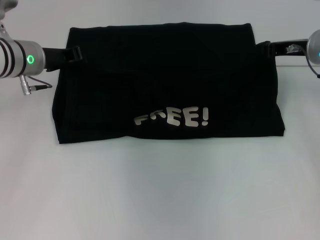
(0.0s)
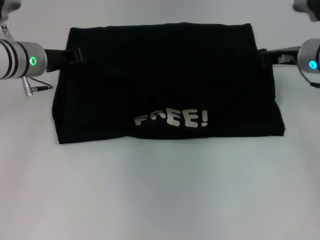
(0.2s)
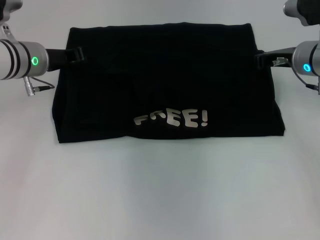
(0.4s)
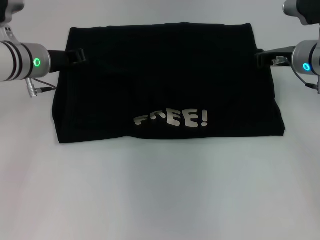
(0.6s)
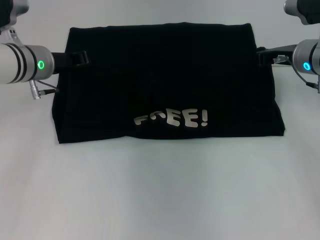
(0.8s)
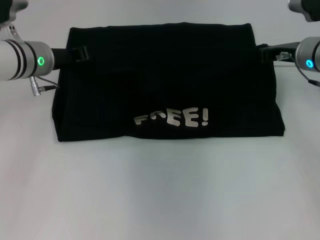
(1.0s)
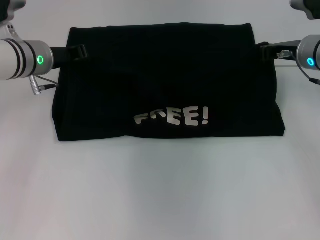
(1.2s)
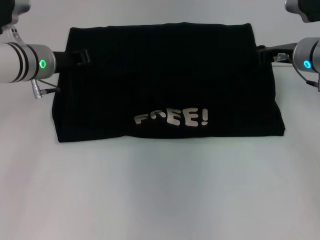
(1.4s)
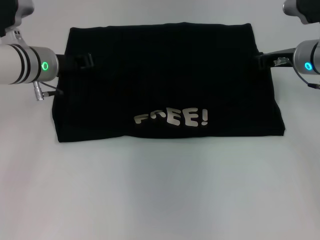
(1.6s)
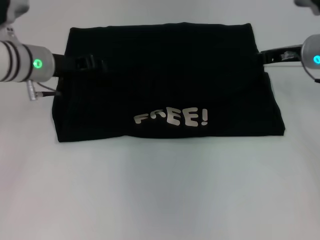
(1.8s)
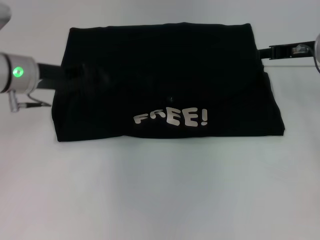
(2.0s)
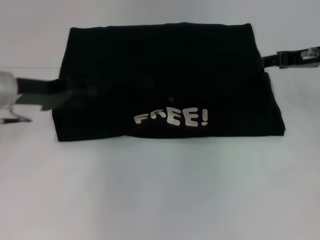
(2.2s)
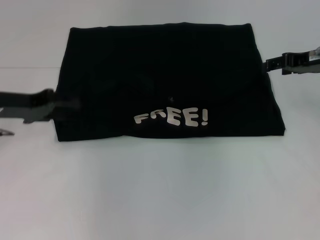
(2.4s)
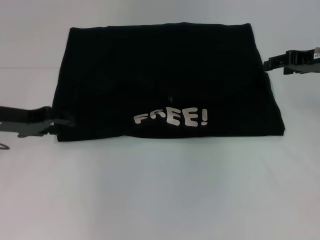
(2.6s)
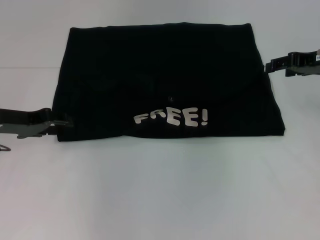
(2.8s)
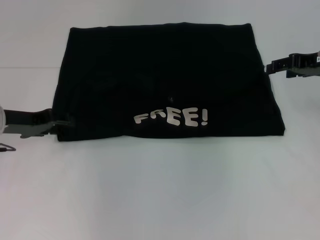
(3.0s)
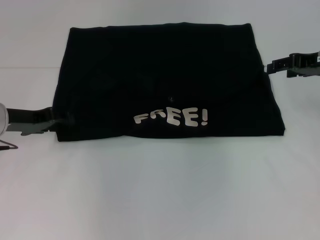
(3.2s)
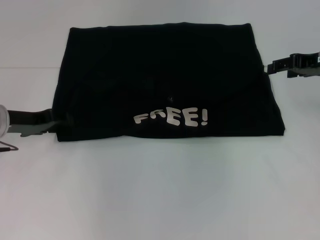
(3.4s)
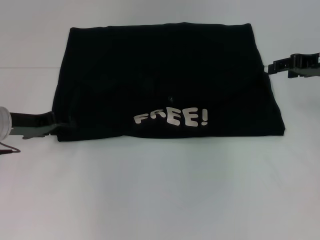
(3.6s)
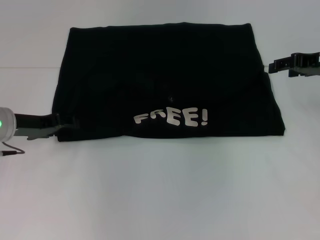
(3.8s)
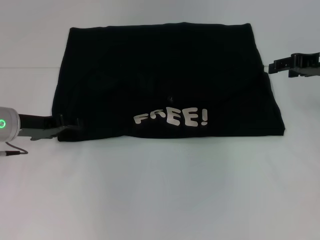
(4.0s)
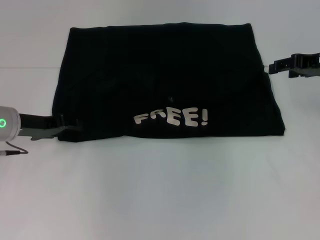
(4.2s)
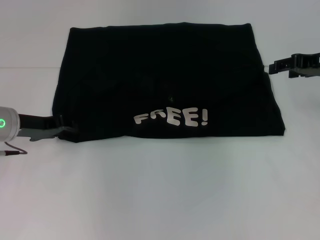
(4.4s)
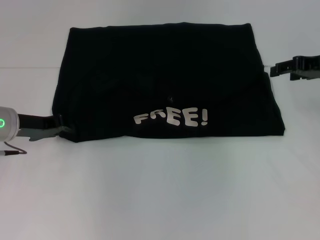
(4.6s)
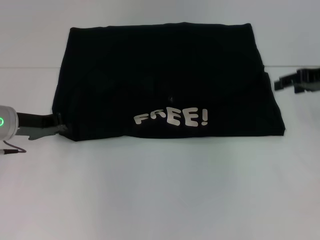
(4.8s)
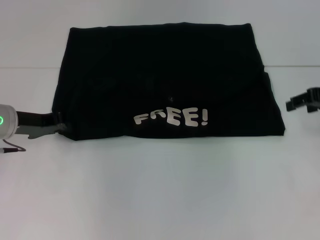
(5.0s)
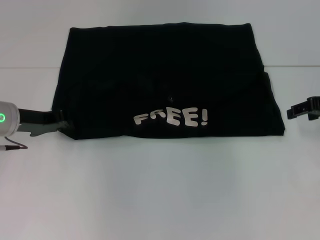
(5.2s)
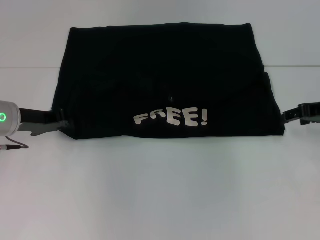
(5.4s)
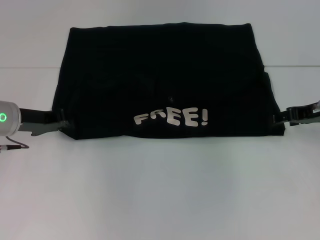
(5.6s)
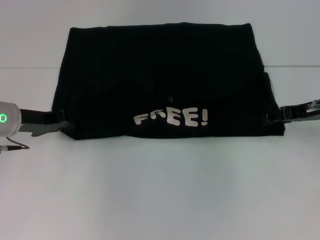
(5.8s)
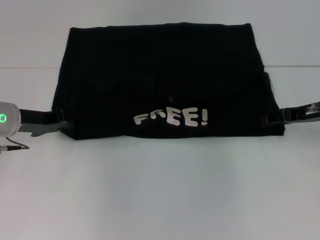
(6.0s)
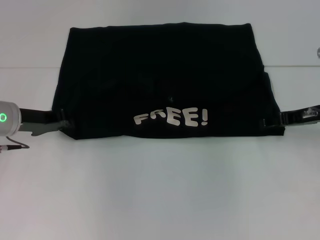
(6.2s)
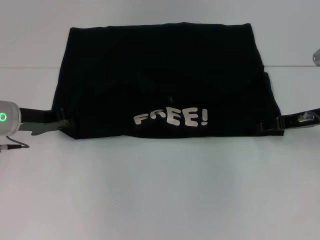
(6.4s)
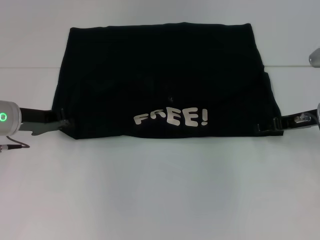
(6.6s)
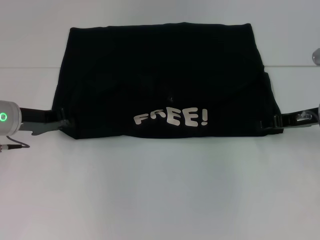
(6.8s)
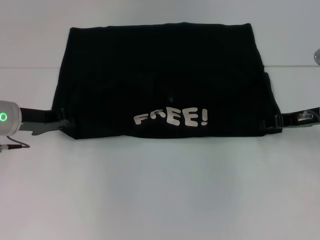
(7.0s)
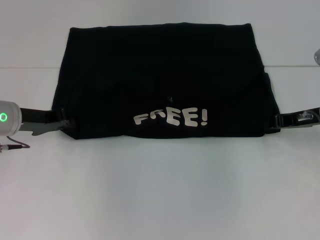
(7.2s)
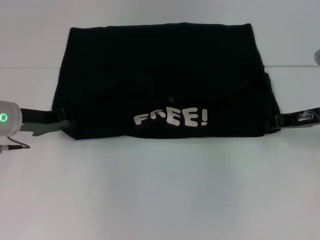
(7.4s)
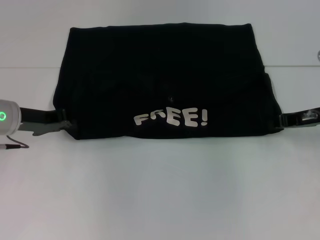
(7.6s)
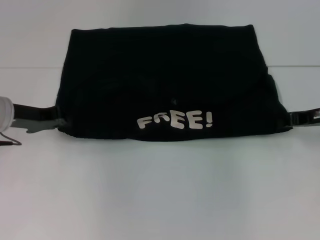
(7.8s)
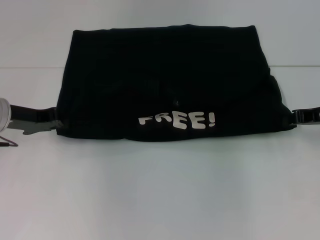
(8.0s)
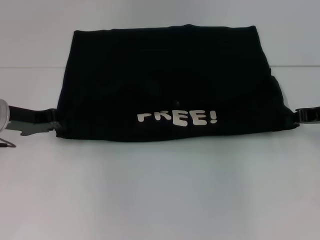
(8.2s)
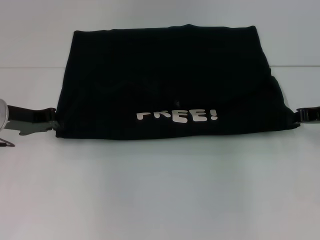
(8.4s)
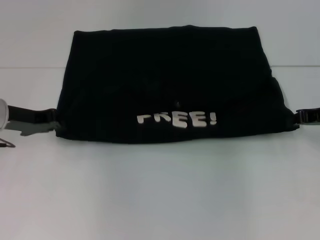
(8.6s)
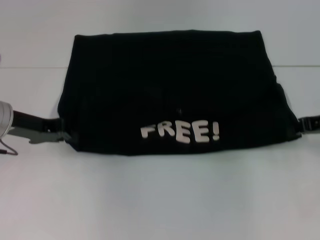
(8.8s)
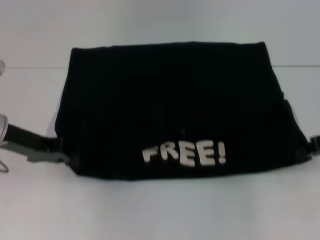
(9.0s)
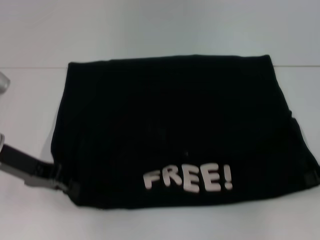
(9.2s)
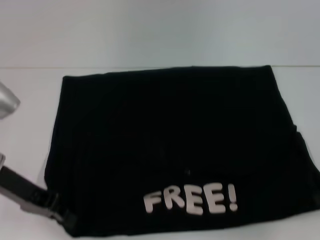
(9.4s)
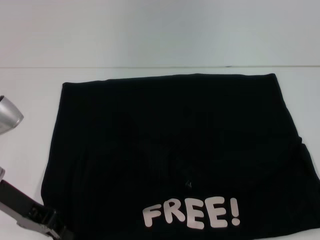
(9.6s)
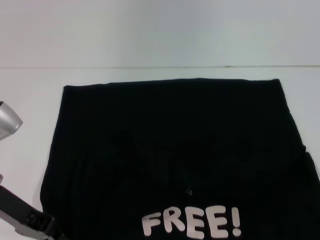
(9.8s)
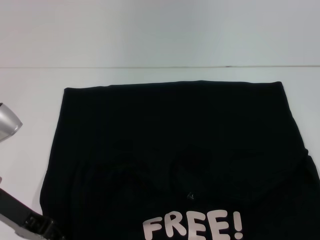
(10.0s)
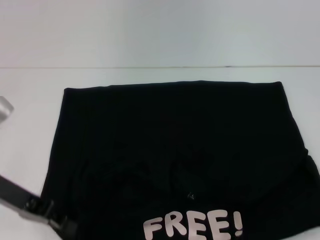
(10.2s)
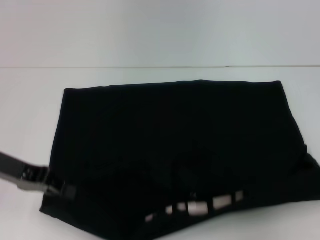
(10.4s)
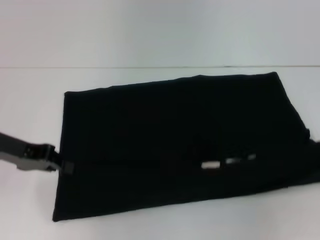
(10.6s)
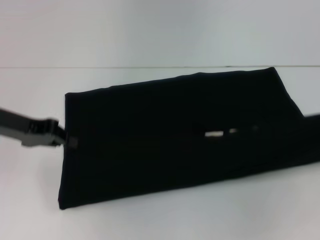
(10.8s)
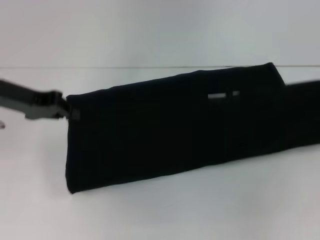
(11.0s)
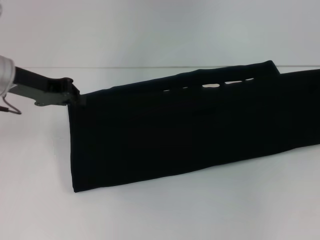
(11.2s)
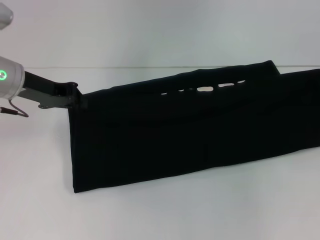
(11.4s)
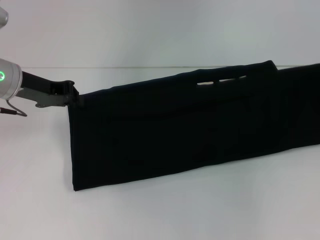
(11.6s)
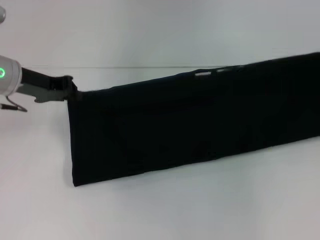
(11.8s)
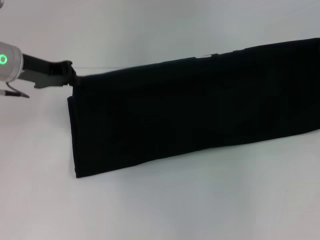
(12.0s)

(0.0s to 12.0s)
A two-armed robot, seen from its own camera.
Step, 0.0s - 2.0s: Fold the clothes with your left hand.
Step, 0.0s - 2.0s: Fold the clothes with your right hand.
Step, 2.2s - 9.6s: Pull the clothes with your left hand.
Step, 2.2s - 9.6s: Pull the clothes with your right hand.
0.0s - 1.6s: The grippers stay close to where they were, moving slightly.
1.6s - 3.0s: The right gripper heads to the right, covering roughly 5 cm, and opens. Meanwhile the left gripper moves to the left and backward, some 10 cm, and opens.
3.0s - 4.4s: The grippers make only small movements.
4.4s - 6.0s: The left gripper closes up, while the right gripper shifts approximately 5 cm downward.
6.0s - 7.6s: The right gripper closes.
7.6s - 9.0s: The right gripper changes place by roughly 5 cm.
9.0s - 10.4s: The right gripper moves backward and to the right, some 10 cm.
10.4s - 12.0s: The grippers both shift forward by approximately 10 cm.

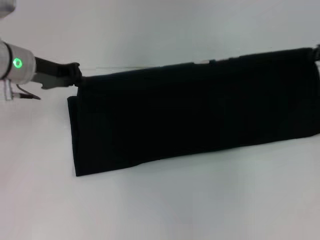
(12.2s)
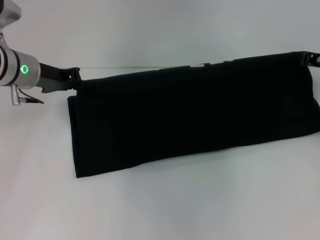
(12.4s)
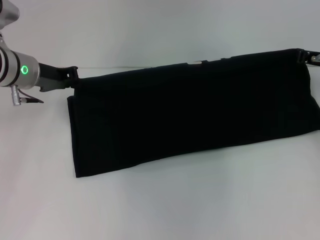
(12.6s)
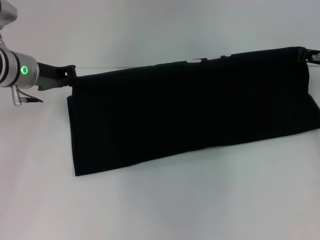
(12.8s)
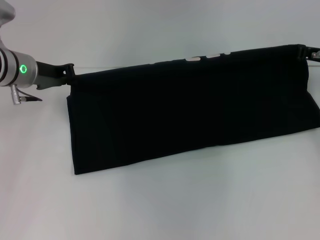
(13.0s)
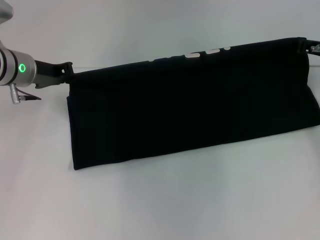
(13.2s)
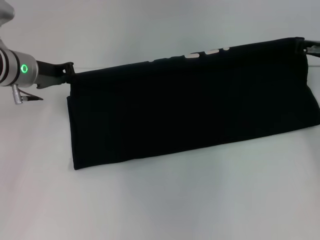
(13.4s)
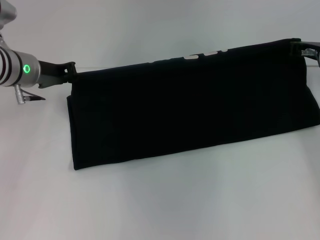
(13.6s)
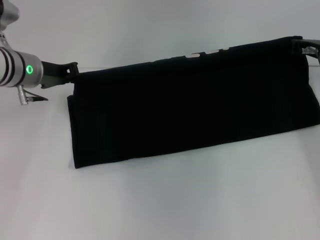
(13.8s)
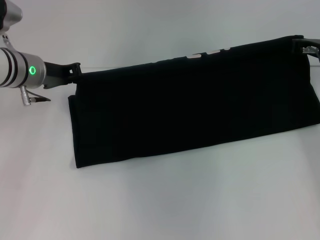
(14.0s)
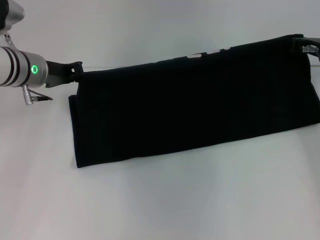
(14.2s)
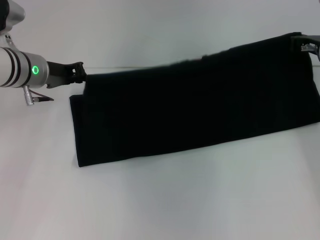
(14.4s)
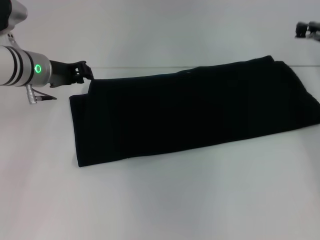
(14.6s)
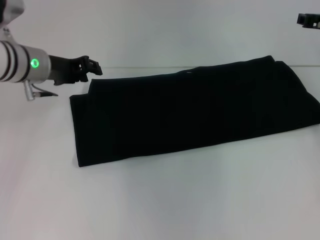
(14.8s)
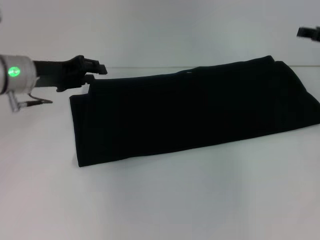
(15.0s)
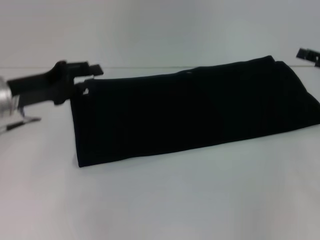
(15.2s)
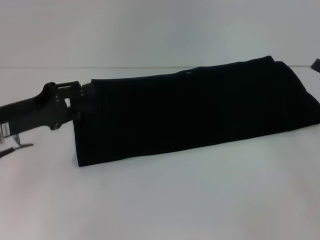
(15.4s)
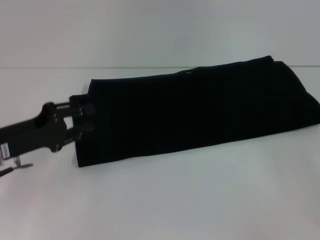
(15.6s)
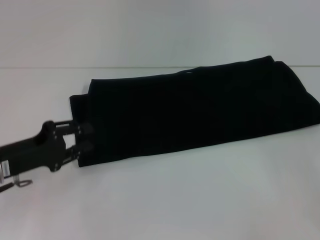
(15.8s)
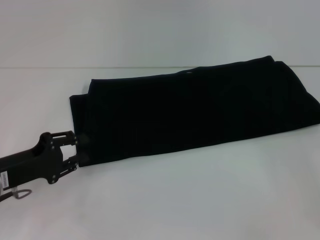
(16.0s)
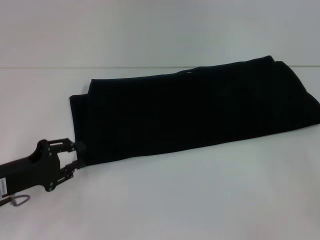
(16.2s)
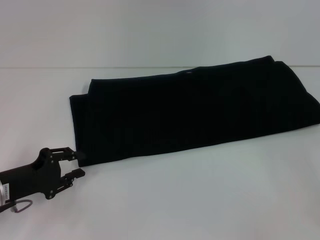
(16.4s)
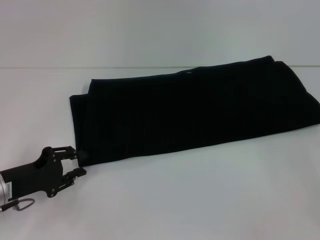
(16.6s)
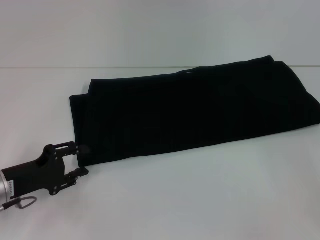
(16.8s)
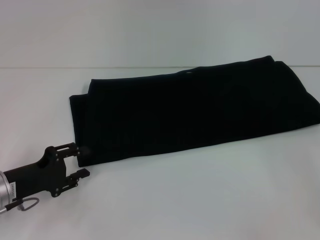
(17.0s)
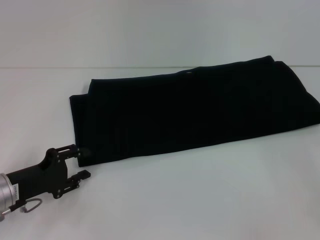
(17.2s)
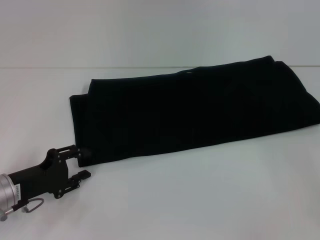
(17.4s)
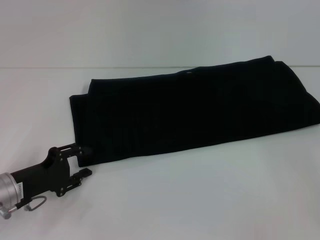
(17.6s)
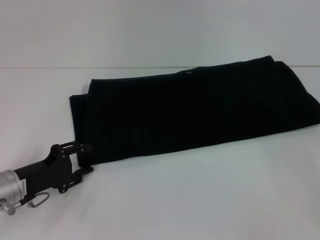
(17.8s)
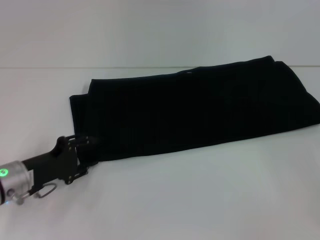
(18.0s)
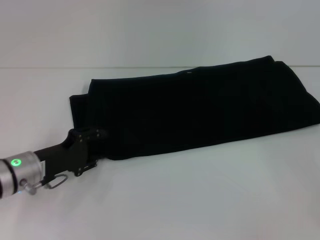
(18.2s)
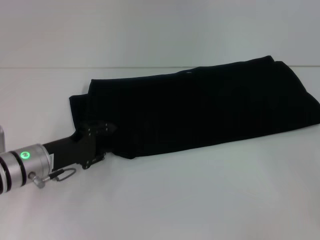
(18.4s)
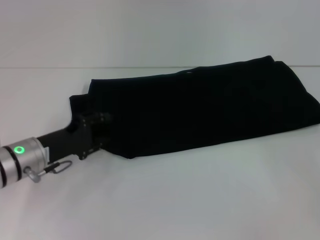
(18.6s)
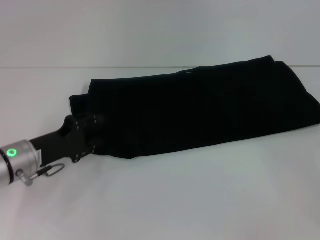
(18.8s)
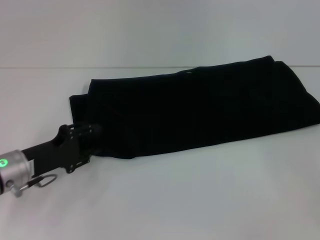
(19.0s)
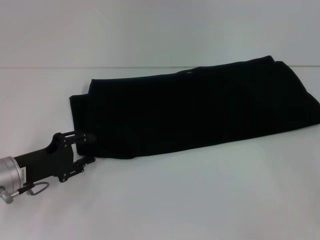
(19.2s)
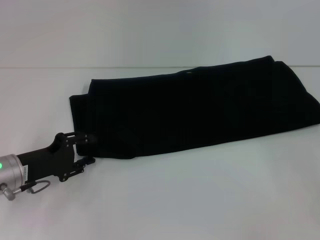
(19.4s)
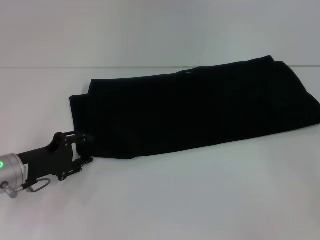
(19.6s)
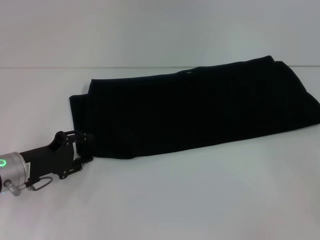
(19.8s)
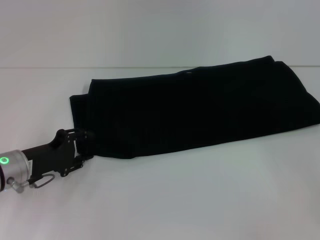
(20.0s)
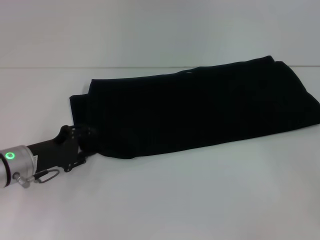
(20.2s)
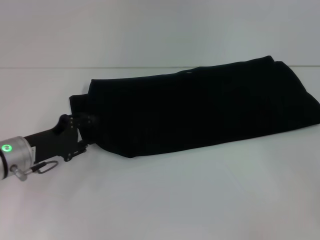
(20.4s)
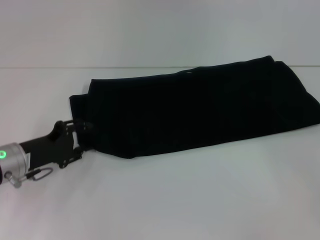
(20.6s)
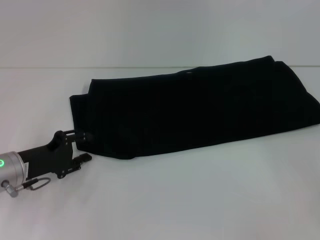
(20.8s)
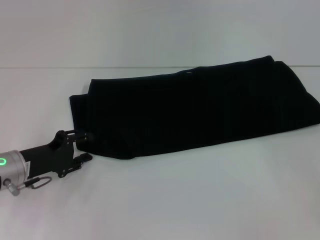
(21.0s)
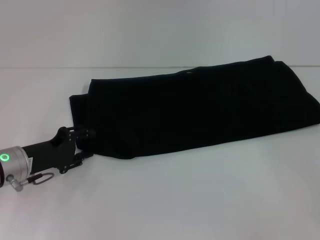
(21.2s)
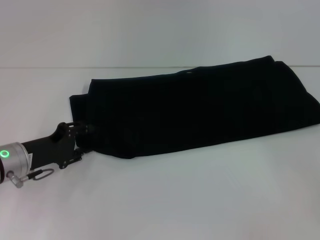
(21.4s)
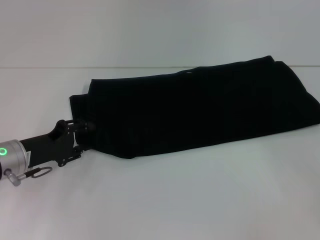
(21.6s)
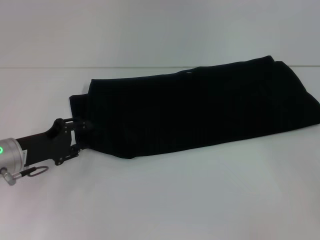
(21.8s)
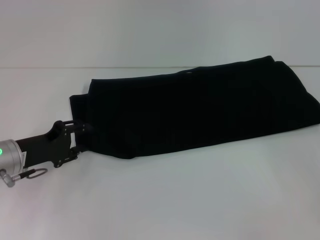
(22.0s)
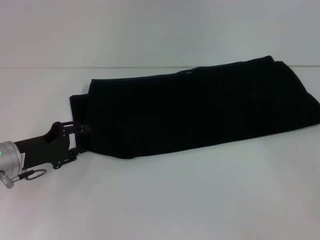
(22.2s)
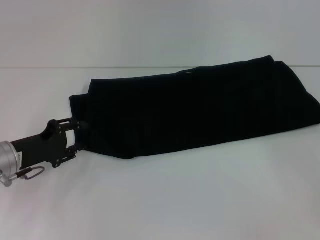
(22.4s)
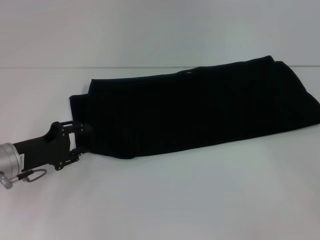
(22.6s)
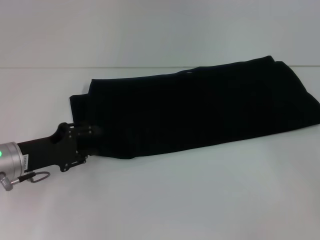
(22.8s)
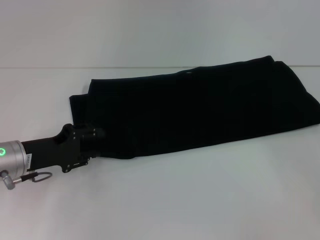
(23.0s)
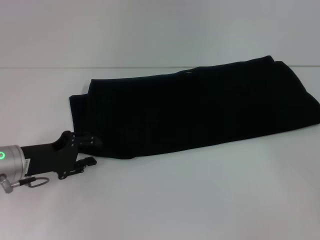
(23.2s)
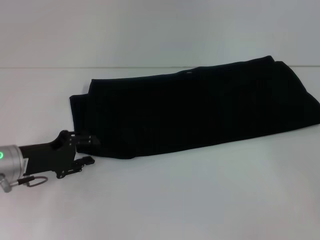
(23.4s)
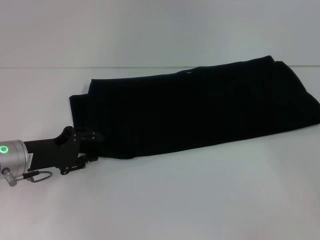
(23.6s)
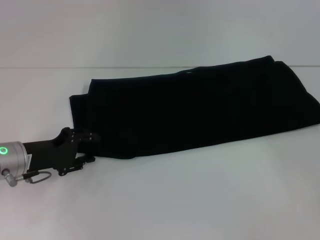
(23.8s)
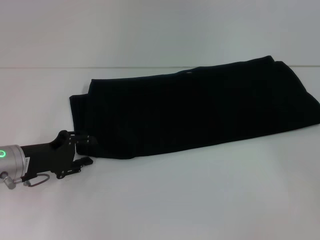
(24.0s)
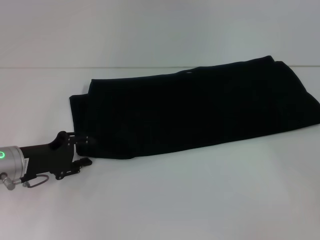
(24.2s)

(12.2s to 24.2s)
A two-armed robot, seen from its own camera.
Step, 12.2s - 15.6s: Fold the clothes with your right hand.
12.2s - 13.8s: The right gripper shifts approximately 5 cm to the left.
13.8s - 15.2s: The left gripper is displaced backward by about 5 cm, and opens. The right gripper shifts roughly 10 cm backward and to the right, and opens up.
15.2s - 16.6s: The left gripper heads downward and backward, covering about 15 cm.
16.6s - 18.2s: The left gripper changes place by about 5 cm.
18.2s - 24.2s: There are only small adjustments of the grippers.
